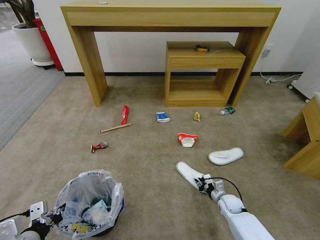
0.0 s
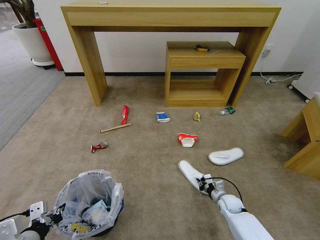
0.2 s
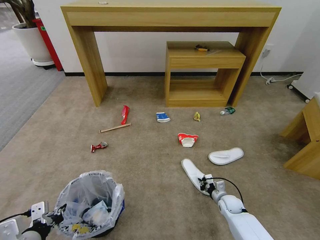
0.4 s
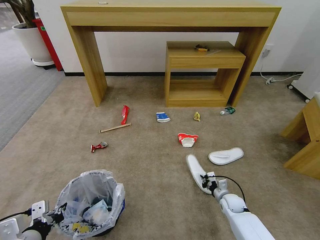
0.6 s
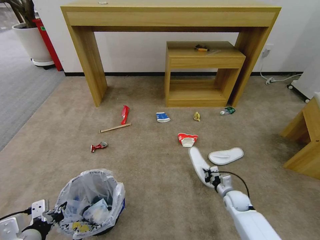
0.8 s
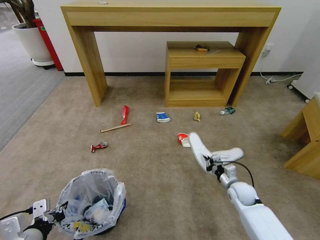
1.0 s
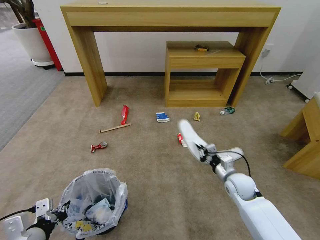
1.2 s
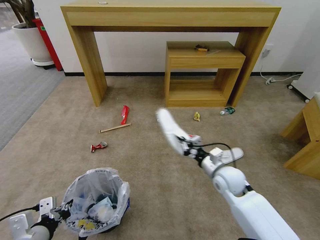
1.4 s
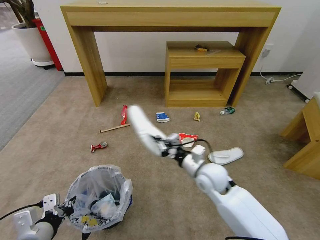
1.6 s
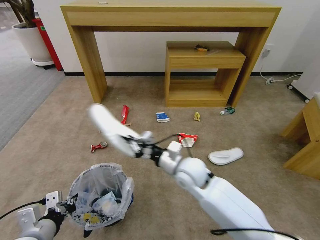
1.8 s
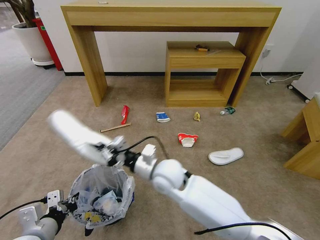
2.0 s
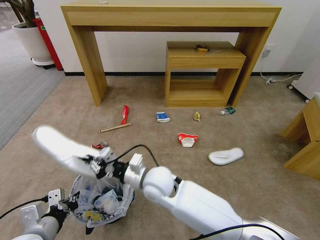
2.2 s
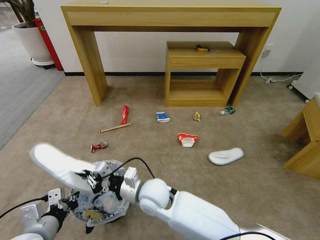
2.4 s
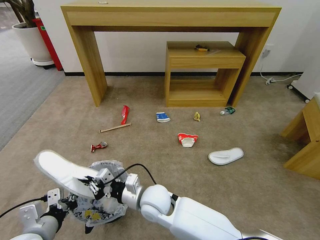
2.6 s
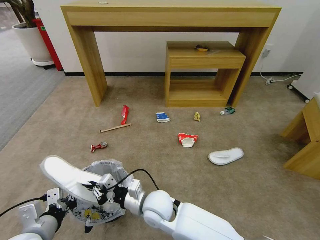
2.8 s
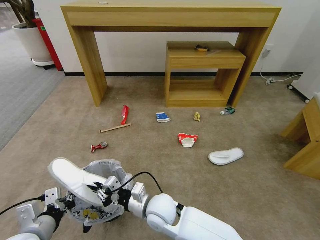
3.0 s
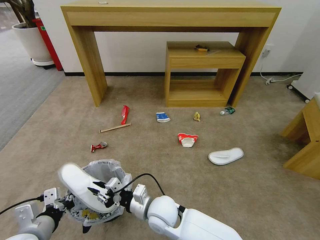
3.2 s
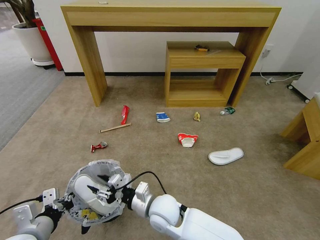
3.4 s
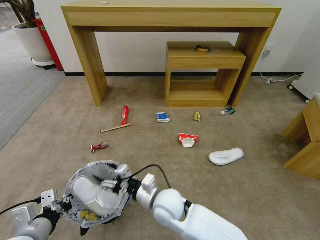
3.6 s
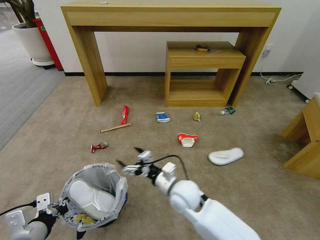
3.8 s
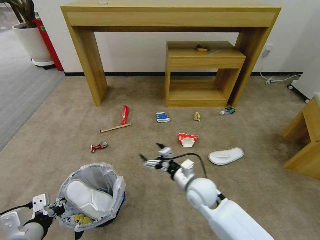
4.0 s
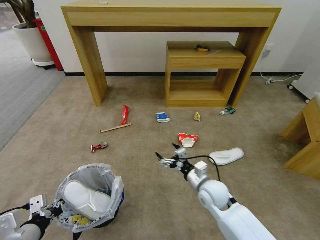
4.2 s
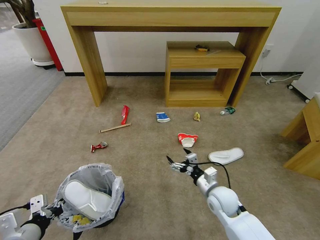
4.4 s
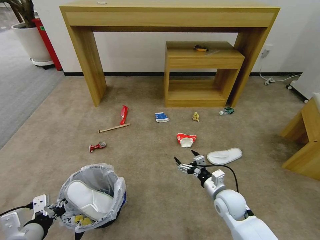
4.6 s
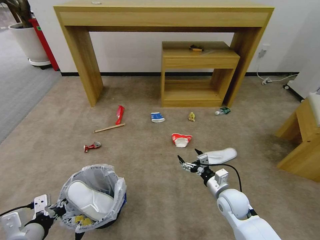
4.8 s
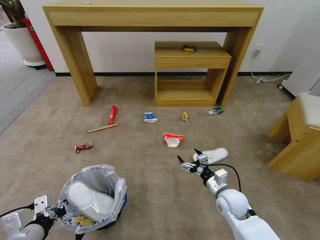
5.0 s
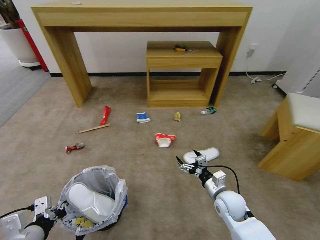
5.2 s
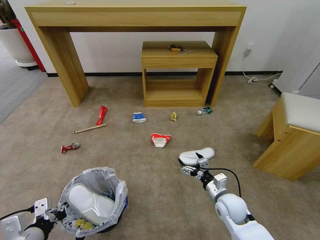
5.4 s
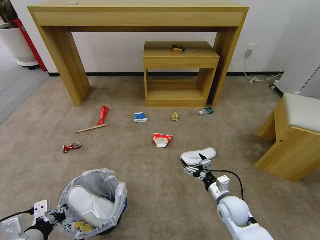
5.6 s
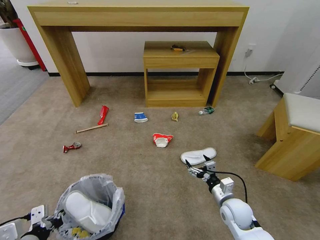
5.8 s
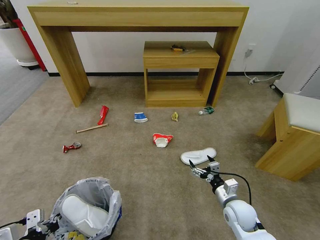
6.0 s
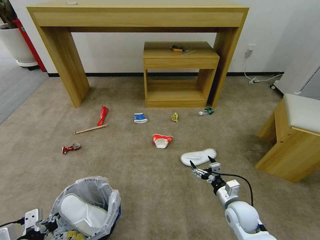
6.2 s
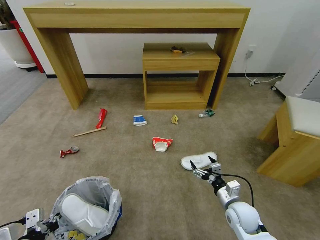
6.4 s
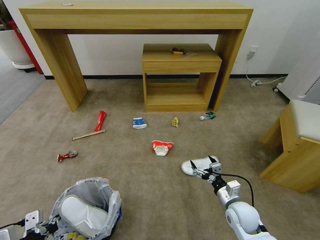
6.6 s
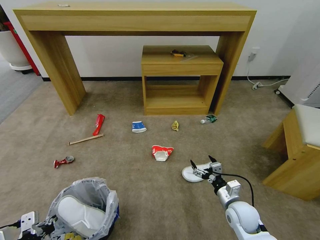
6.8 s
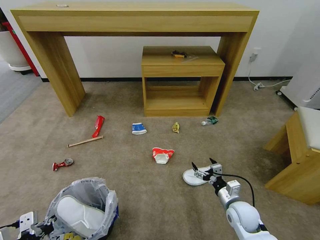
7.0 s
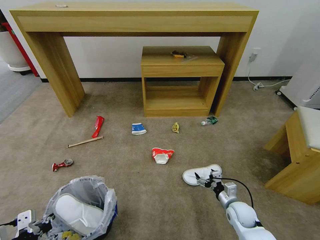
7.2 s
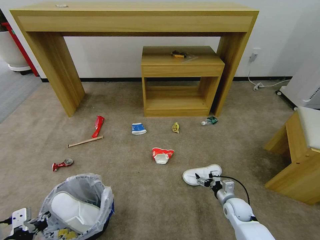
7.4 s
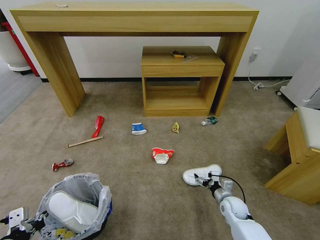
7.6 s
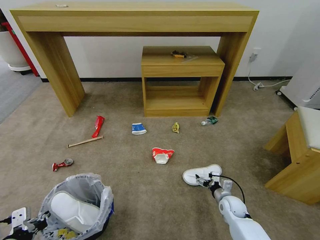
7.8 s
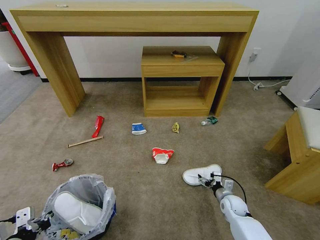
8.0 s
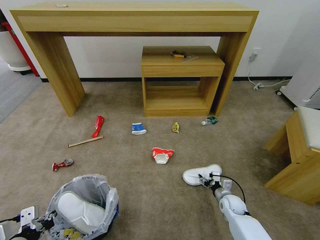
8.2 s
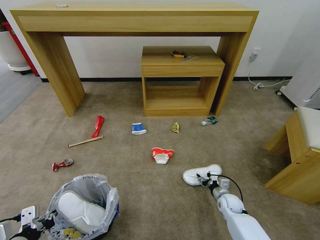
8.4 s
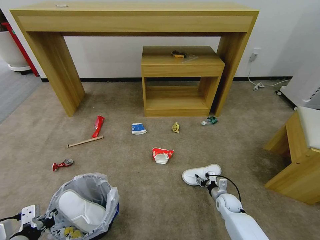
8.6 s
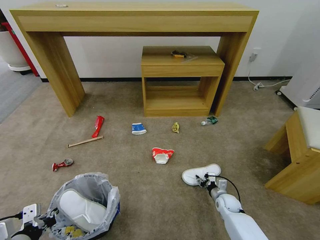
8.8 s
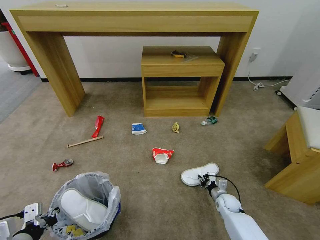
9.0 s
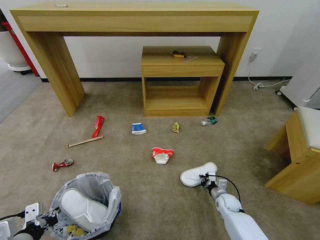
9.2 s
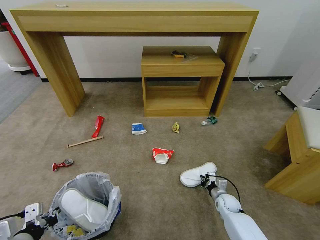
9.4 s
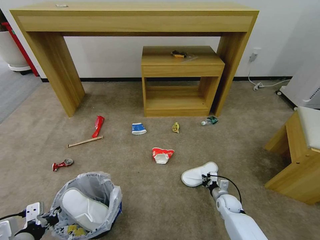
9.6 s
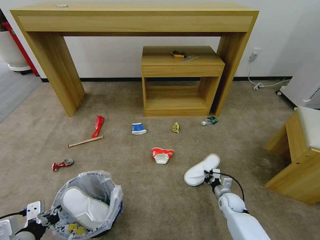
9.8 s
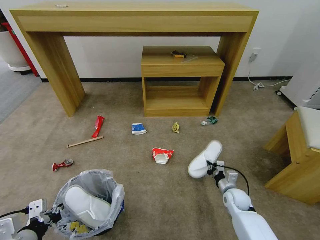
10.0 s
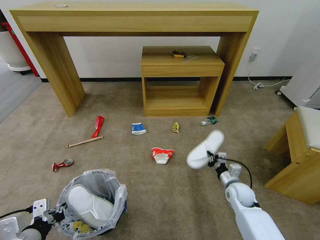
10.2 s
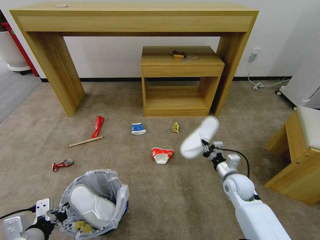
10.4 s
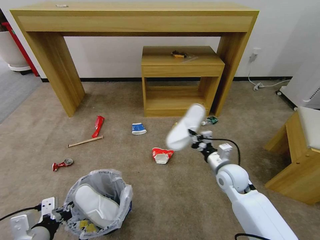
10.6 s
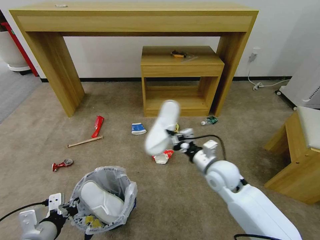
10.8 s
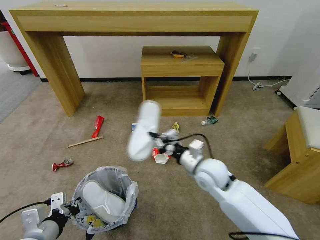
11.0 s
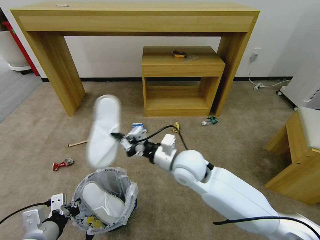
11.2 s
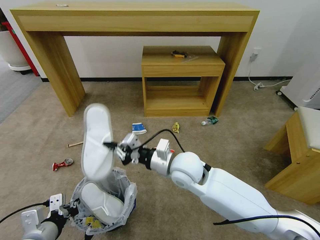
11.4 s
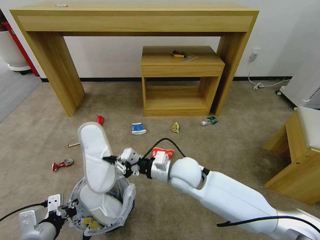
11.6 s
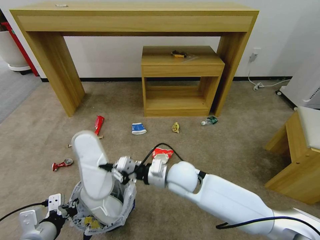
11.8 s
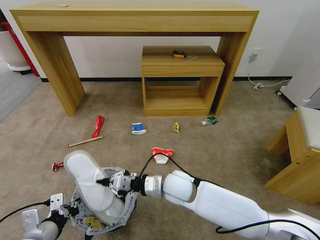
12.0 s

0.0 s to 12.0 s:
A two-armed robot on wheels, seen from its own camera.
Task of the whole recording: Pick up the trash bin and place the garbage on the floor into it.
0.0 to 1.6 s: The right gripper heads upward and to the left, covering approximately 30 cm.
1.6 to 3.0 s: The right gripper is displaced to the left and backward by roughly 20 cm.
3.0 to 4.4 s: The right gripper heads to the right, covering some 20 cm, and opens.
4.4 to 6.0 s: The right gripper travels to the right by about 5 cm.
6.0 to 7.6 s: The right gripper shifts approximately 10 cm downward.
7.6 to 9.0 s: The right gripper is displaced downward by approximately 5 cm, and closes.
9.0 to 10.4 s: The right gripper is displaced upward by about 15 cm.
10.4 to 12.0 s: The right gripper shifts approximately 25 cm to the left.

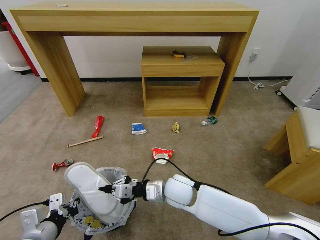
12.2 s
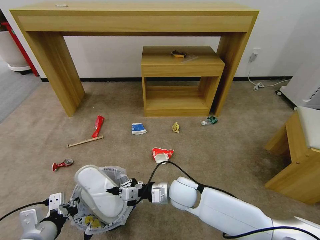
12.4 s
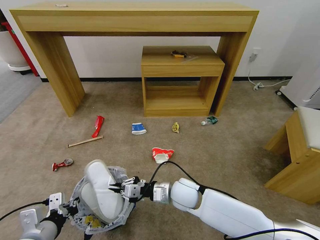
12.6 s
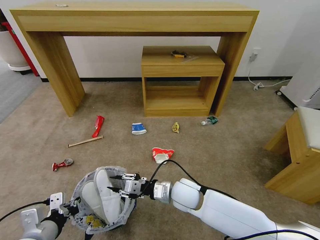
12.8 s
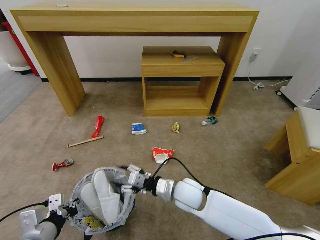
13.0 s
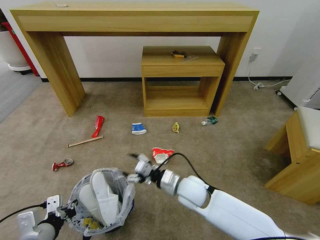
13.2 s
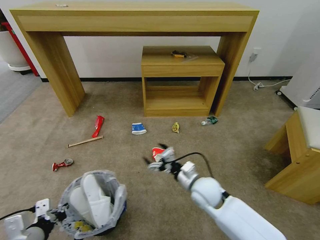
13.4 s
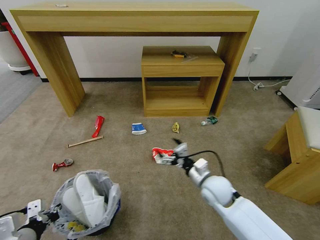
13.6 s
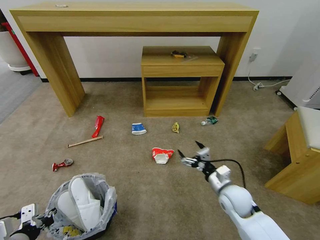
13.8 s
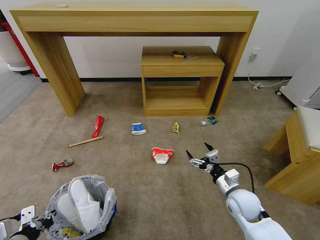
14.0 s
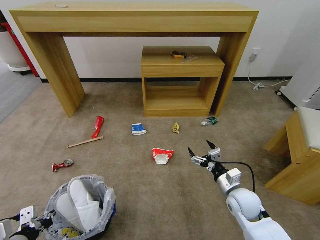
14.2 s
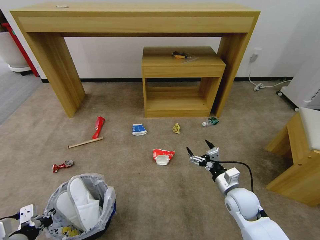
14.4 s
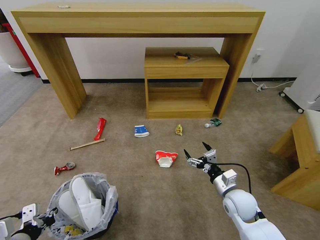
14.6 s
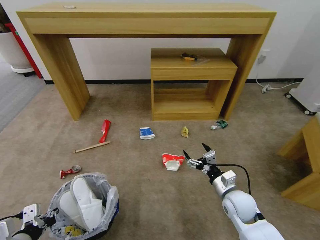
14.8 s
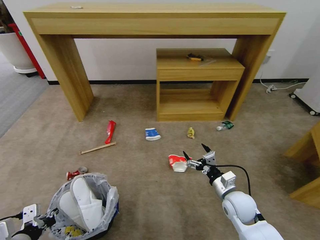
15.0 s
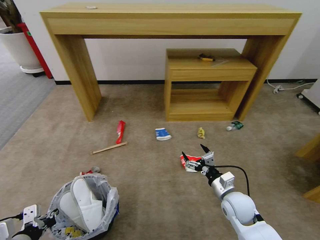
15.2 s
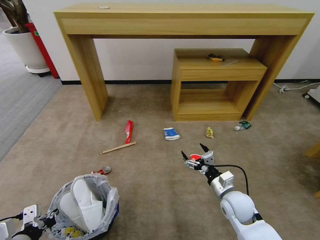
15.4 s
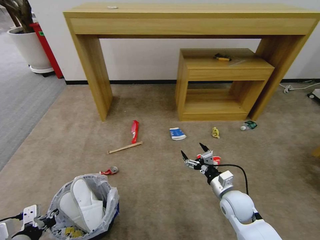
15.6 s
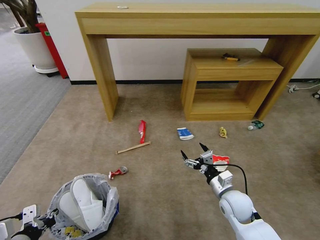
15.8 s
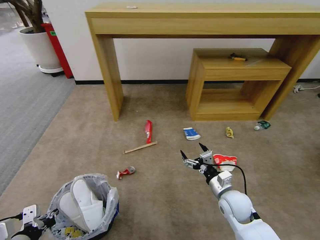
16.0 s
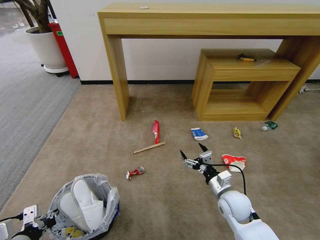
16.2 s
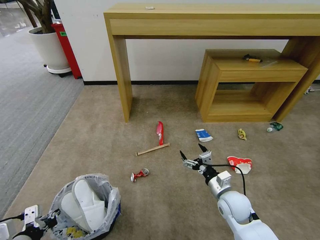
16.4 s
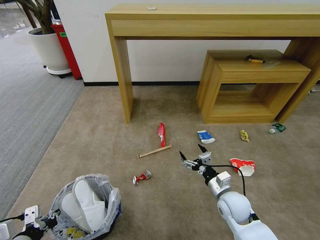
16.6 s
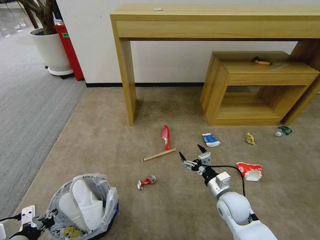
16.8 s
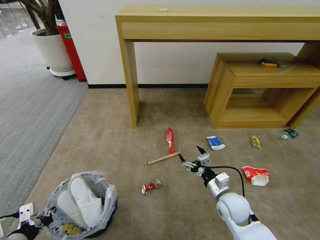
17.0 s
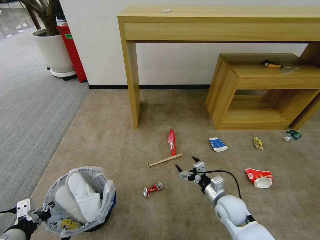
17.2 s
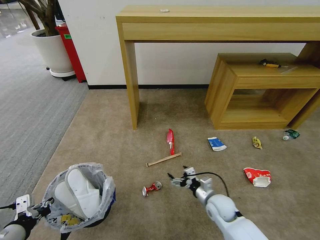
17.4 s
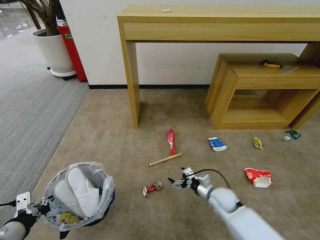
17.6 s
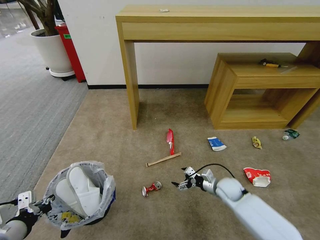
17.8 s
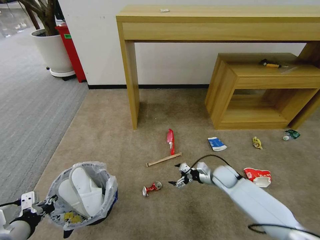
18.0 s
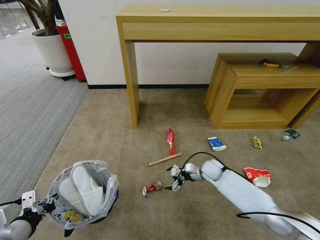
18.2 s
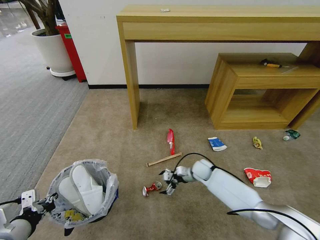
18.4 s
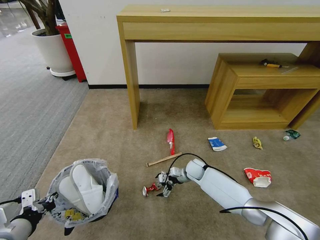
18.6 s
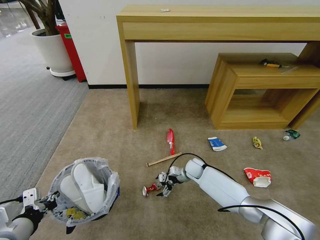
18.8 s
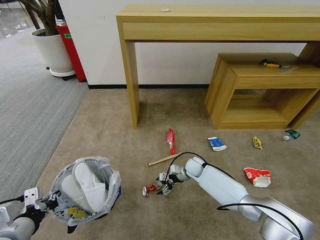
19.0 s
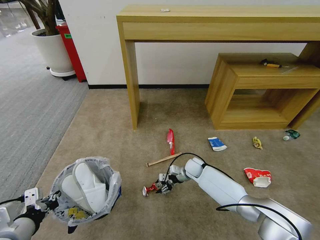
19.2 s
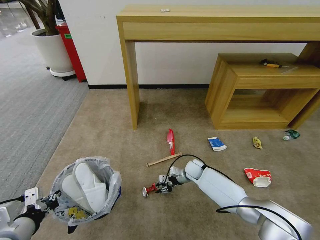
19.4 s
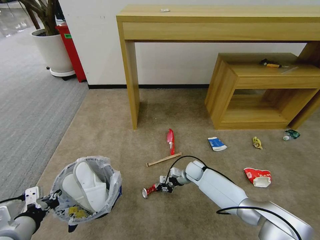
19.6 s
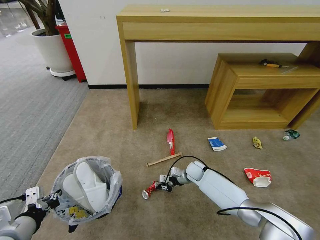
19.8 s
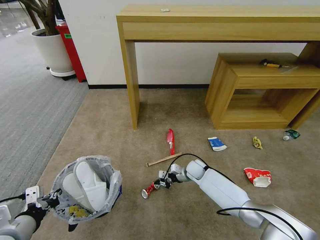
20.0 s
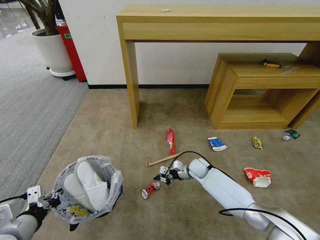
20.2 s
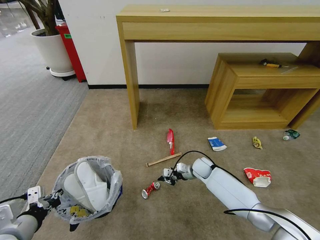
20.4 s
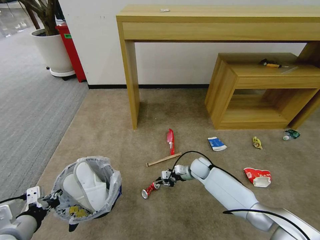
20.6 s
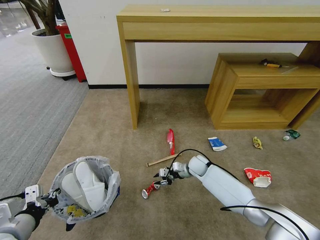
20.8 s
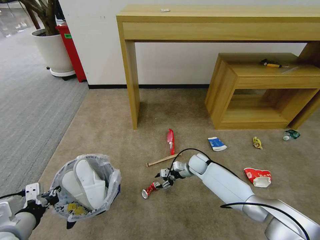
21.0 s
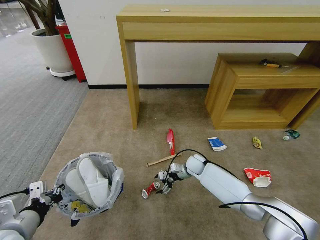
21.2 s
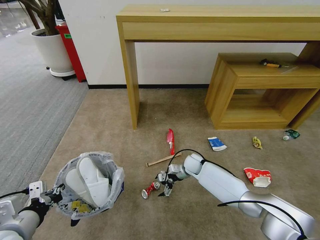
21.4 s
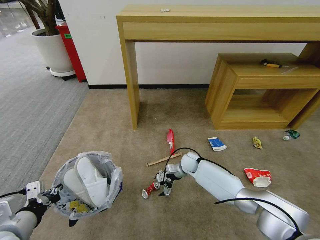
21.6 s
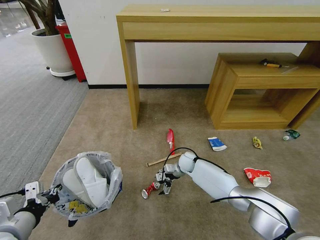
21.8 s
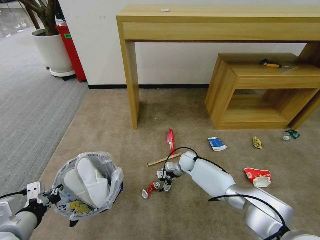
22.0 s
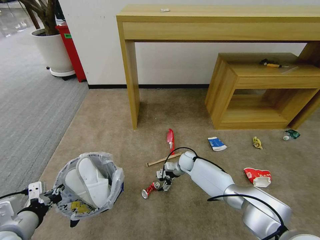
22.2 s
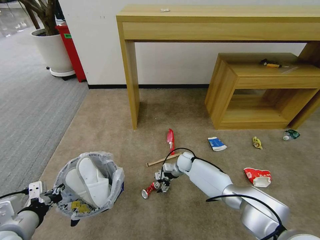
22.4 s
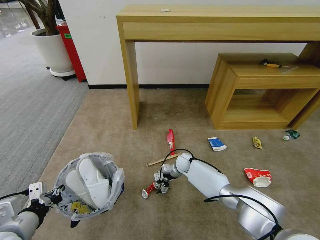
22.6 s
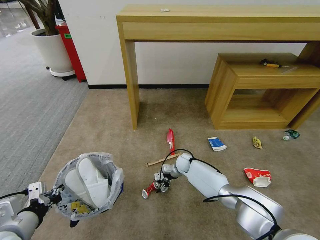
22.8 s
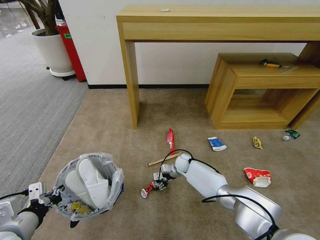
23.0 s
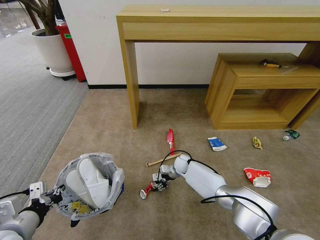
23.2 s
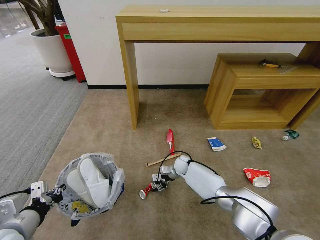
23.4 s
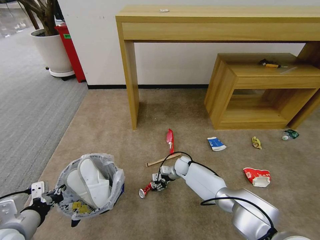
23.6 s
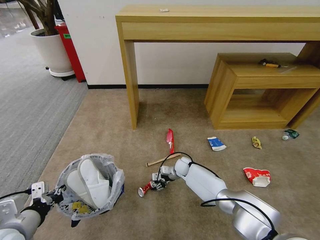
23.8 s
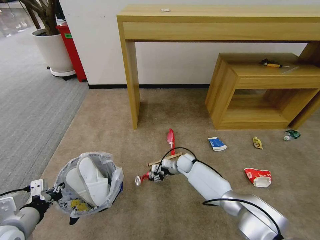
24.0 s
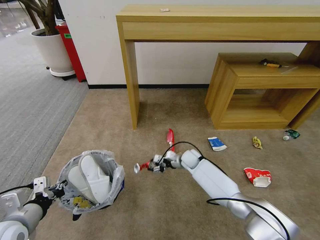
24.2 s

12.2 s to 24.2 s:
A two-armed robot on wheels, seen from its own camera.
Task of the whole recording: Pick up the trash bin and place the garbage on the floor into it.
12.2 to 13.8 s: The left gripper moves to the left, about 5 cm, while the right gripper heads to the right, covering some 20 cm, and opens.
16.6 to 18.2 s: The right gripper moves forward, about 15 cm.
18.2 to 19.8 s: The right gripper travels to the left by approximately 5 cm, and closes up.
19.8 to 21.2 s: The right gripper opens.
21.2 to 22.6 s: The right gripper ends up roughly 5 cm from where it was.
22.6 to 24.2 s: The right gripper closes up.
